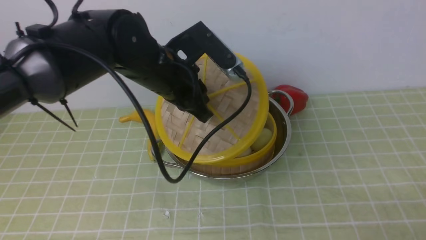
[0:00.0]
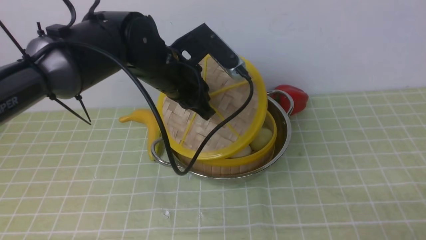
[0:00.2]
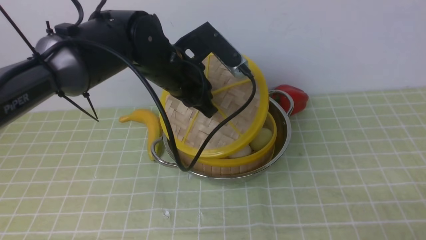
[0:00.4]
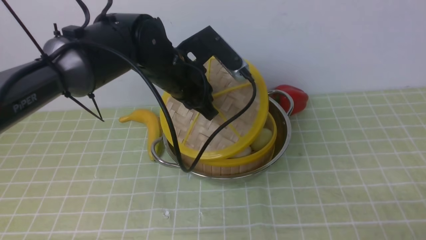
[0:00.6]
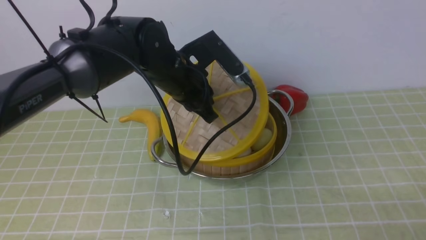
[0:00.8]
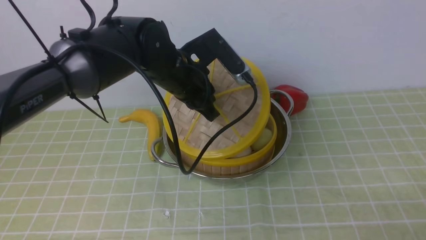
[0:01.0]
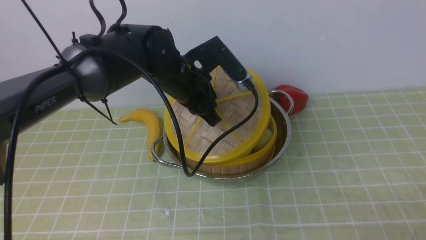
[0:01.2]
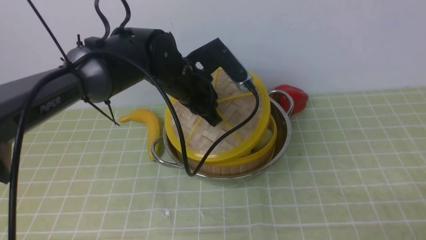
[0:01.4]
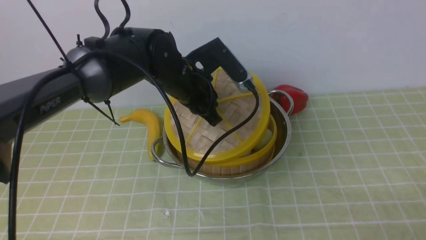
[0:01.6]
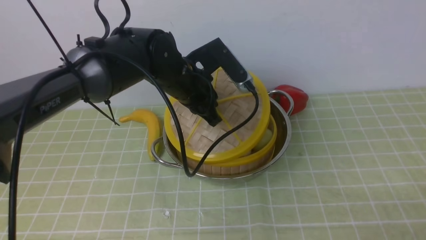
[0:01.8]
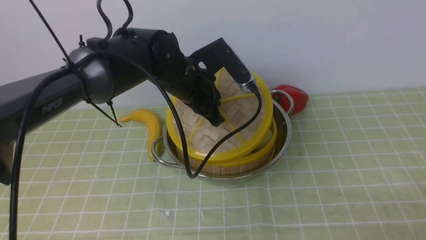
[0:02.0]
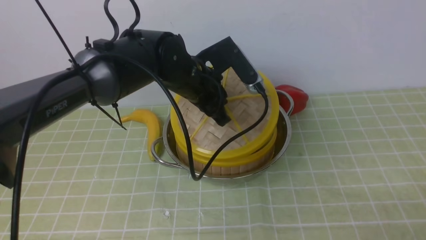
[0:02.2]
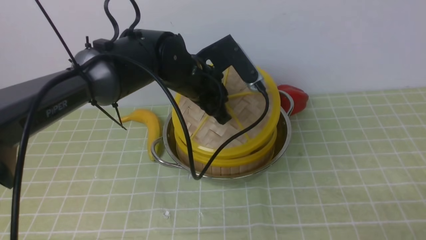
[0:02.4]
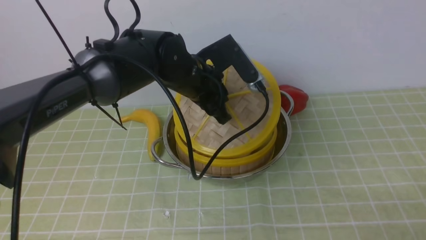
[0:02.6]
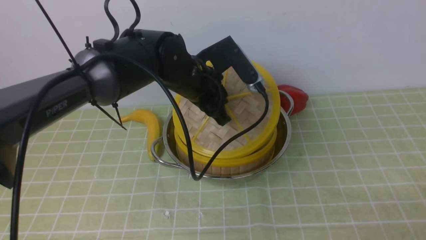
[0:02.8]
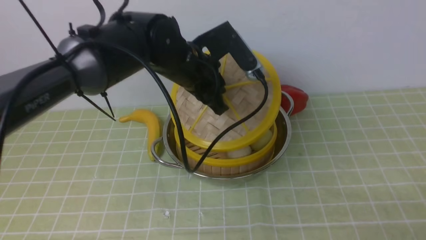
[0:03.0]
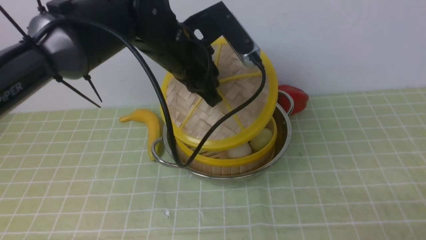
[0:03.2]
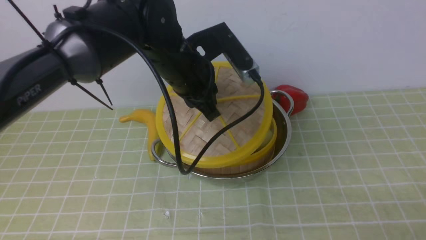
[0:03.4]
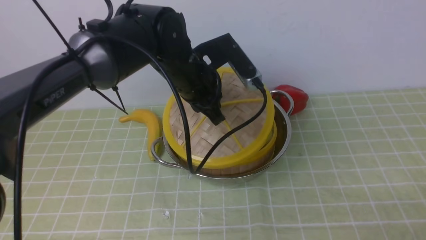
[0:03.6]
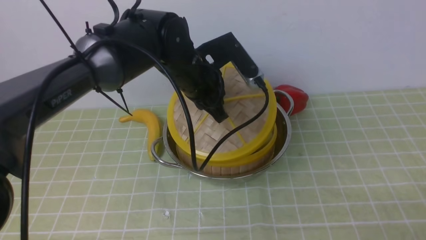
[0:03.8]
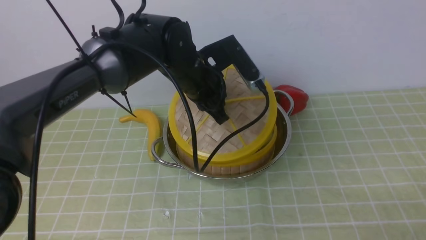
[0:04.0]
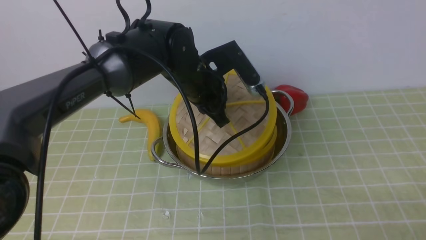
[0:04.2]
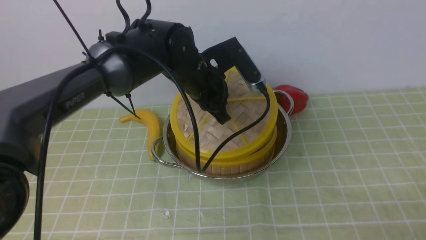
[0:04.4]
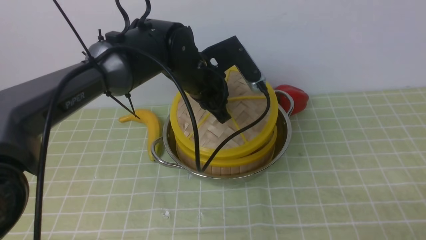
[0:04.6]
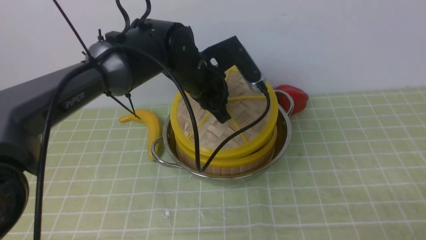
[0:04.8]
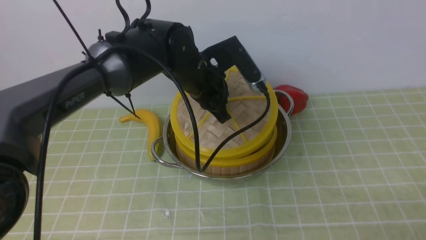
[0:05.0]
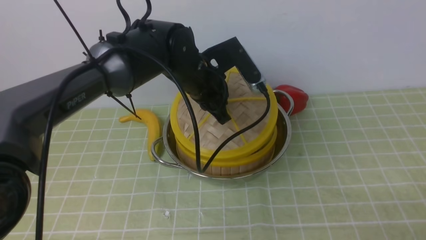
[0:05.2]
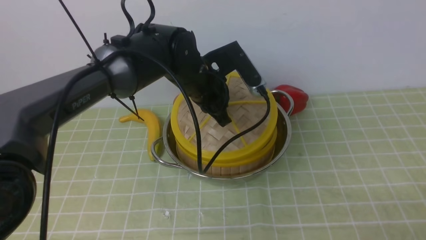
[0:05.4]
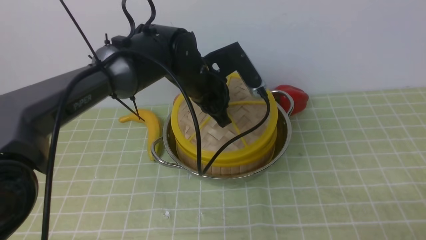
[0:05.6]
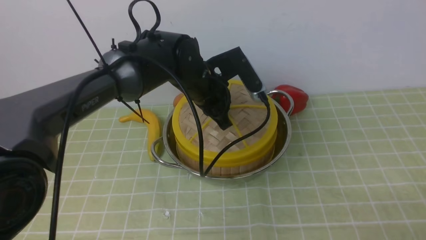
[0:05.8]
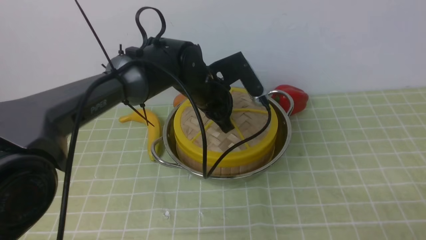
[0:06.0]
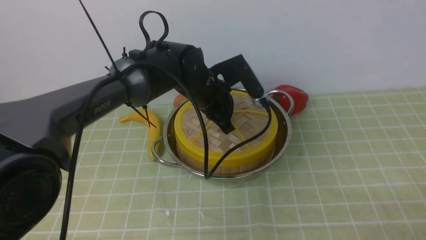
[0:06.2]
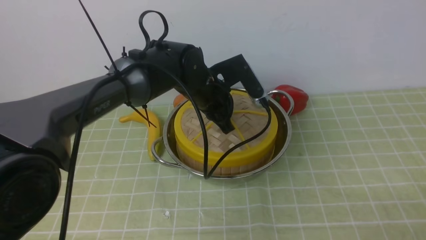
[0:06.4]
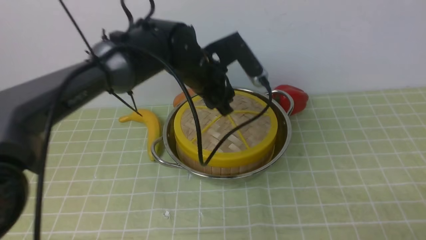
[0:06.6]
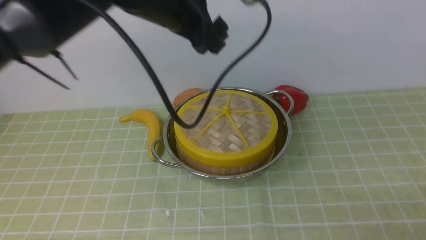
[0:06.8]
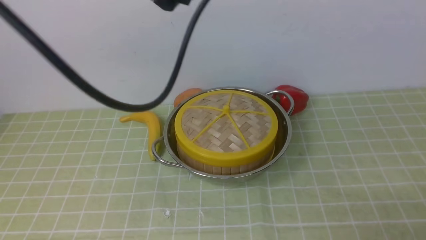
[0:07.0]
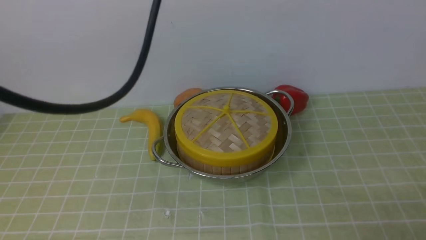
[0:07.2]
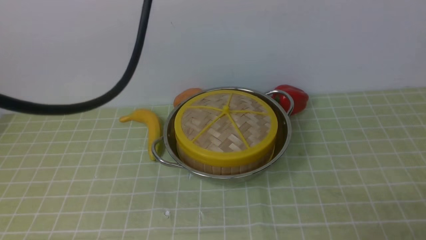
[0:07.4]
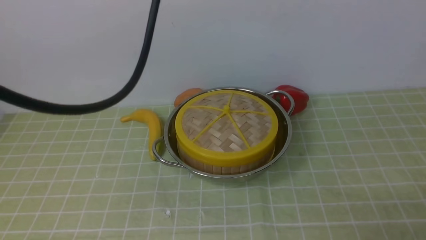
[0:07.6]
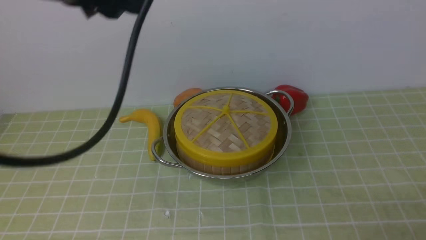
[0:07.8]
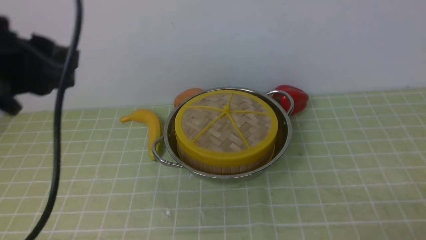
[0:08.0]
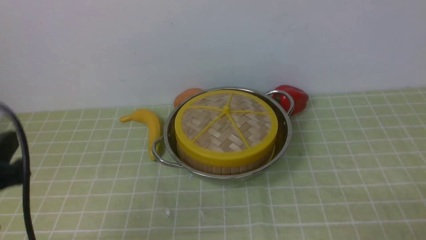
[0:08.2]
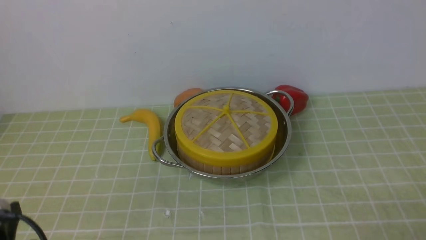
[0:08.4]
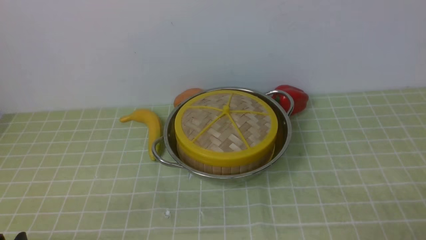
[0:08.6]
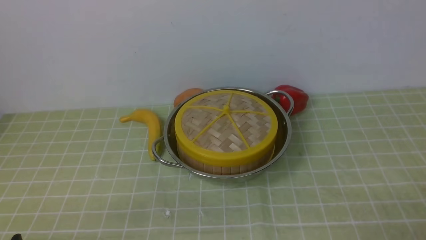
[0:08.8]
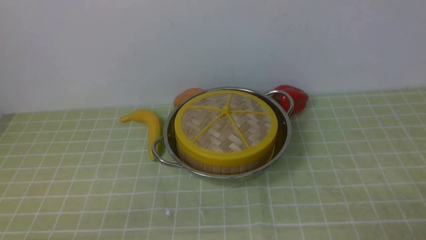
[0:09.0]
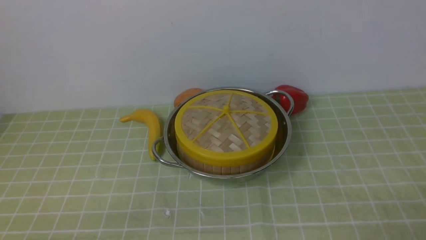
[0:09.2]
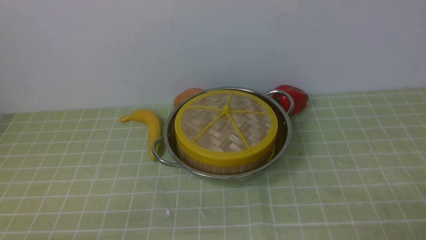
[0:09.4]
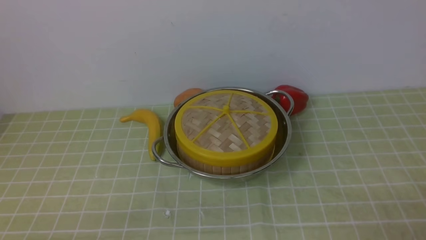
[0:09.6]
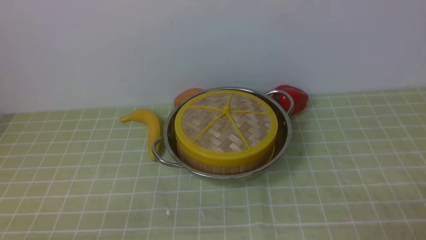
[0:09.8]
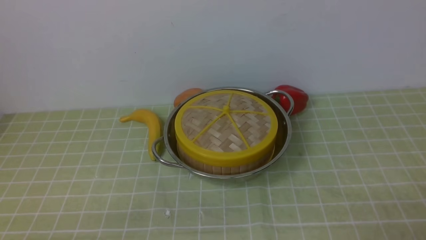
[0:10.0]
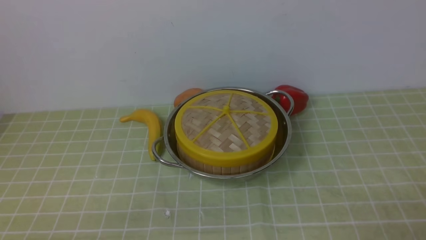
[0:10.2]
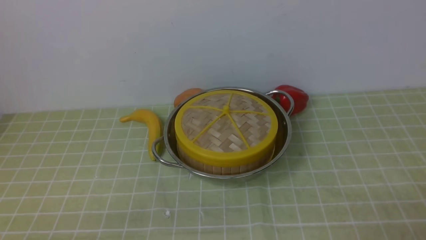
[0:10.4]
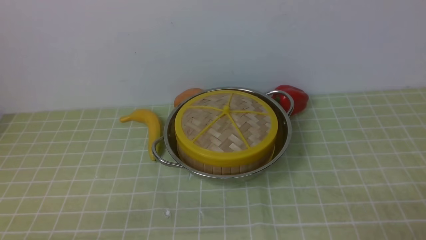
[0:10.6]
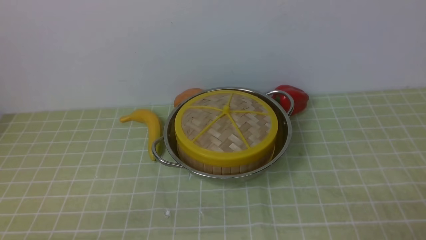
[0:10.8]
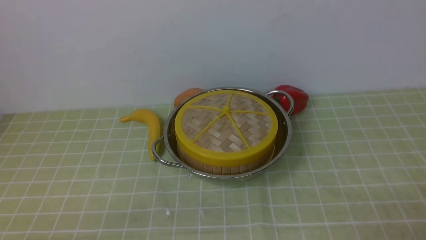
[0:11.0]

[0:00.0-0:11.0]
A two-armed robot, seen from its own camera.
Task of the whole recording: place the steamer in the pot on the green tablecloth, and put the lid on the steamer.
Step, 0:00.0 to 0:06.8: use the left arm to place the steamer lid on the steamer.
0:00.0 to 0:01.6: The left gripper ends up some 5 cm from where it was.
0:03.2 to 0:04.8: The left gripper changes place by roughly 5 cm.
0:06.2 to 0:07.8: The left gripper shifts about 30 cm upward, backward and to the left, and opens.
0:07.8 to 0:09.4: The left gripper is displaced downward and backward by approximately 35 cm.
0:09.4 to 0:11.0: The two grippers keep their place.
